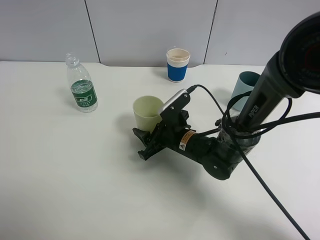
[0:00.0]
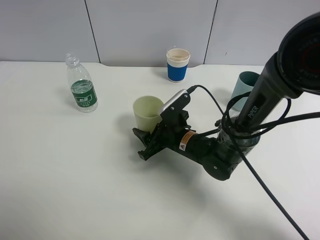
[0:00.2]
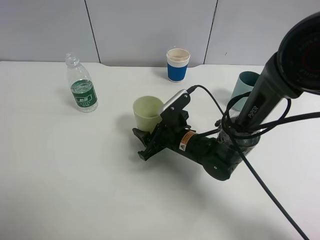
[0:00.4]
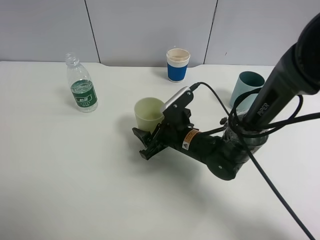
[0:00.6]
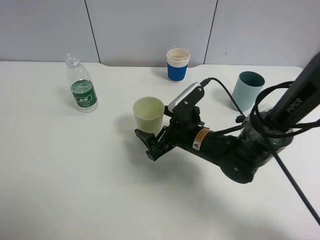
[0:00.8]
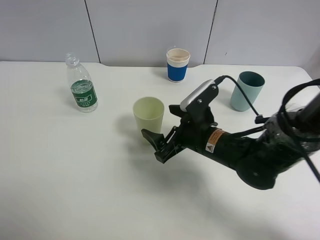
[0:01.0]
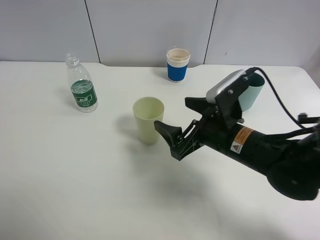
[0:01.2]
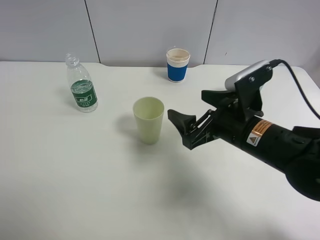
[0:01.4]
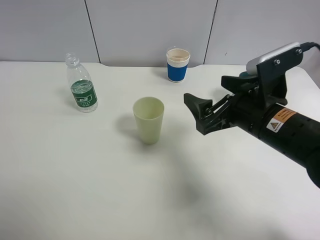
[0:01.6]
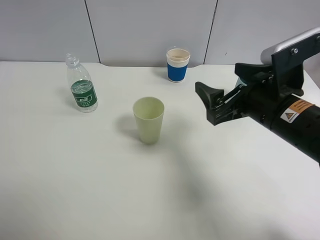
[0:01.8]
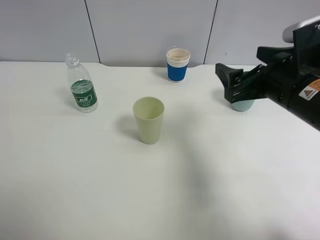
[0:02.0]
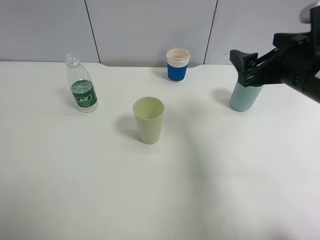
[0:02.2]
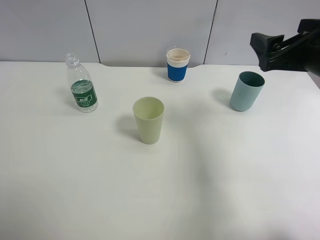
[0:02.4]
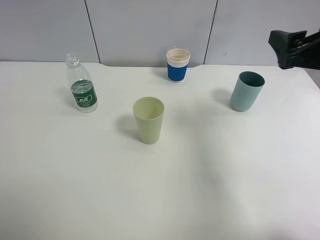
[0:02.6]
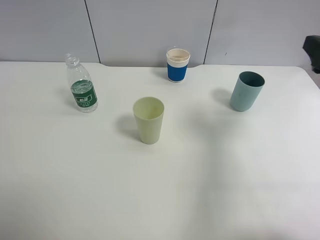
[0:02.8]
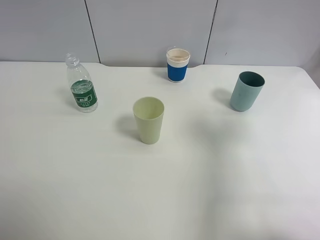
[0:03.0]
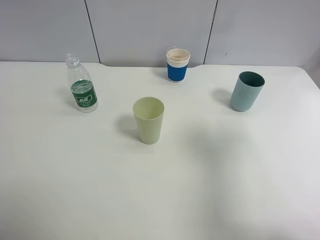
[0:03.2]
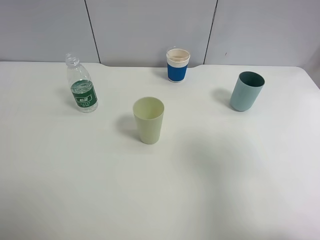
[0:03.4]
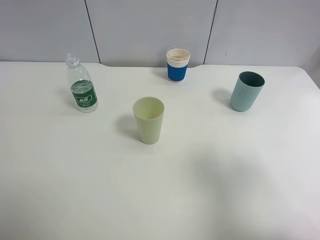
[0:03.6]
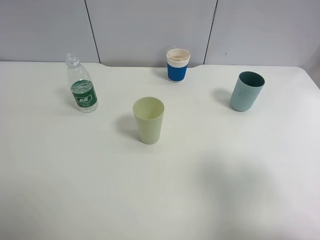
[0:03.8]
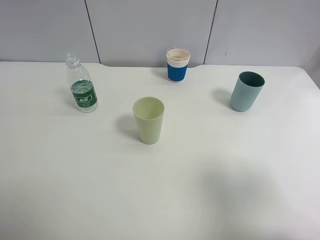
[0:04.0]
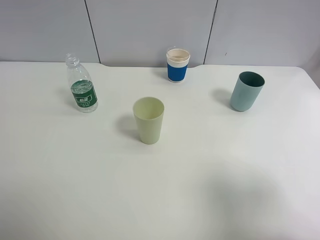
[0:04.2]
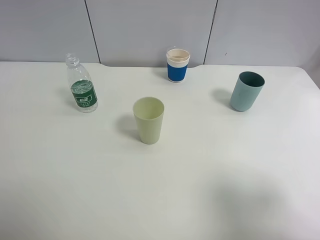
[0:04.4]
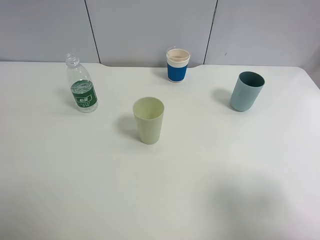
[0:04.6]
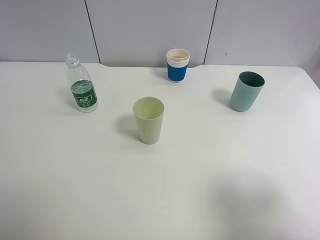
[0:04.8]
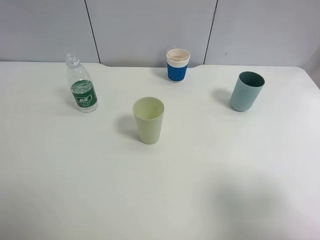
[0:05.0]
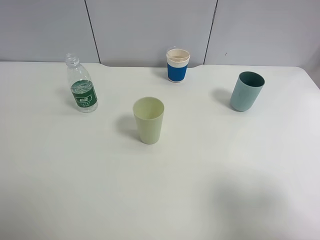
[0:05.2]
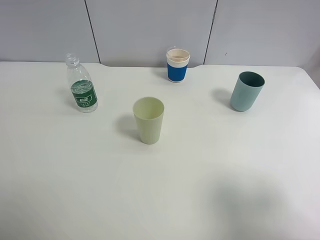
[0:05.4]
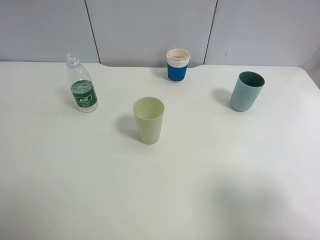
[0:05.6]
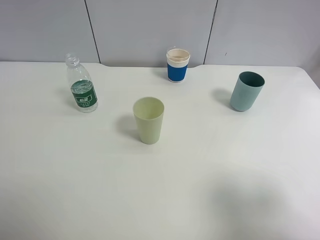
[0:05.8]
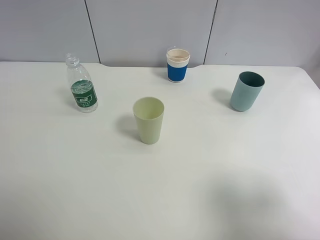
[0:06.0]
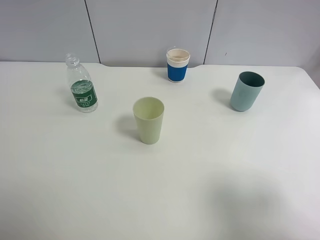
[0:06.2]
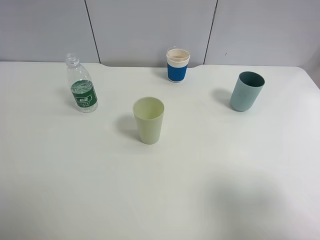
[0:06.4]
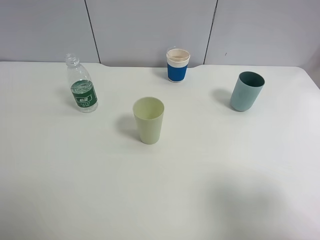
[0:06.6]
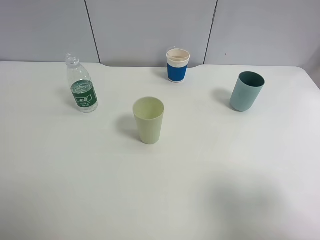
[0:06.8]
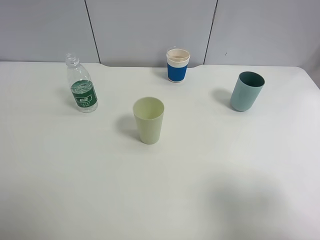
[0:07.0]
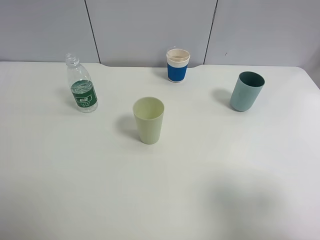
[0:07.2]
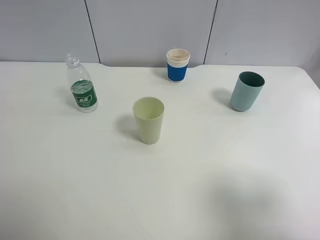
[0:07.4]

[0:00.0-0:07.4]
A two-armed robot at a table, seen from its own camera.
Task of the whole recording: use a clamp to hold the bottle of the drink, pour the beverage into a random cup, then clamp the cup containing the drink and pour the drink into another random cup.
0:00.0 to 0:01.4: The right gripper travels upward, to the right and backward by some 15 cm, and opens its fingers.
0:01.4 to 0:03.0: The right gripper is displaced to the right and upward by about 20 cm.
0:03.0 to 0:04.4: The right gripper moves backward, some 15 cm.
0:04.4 to 0:07.4: Both grippers stay about where they are.

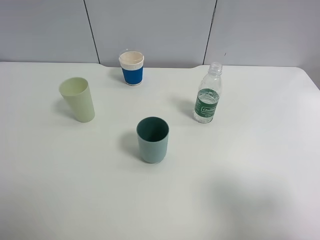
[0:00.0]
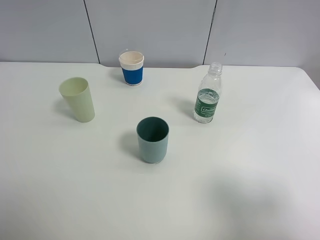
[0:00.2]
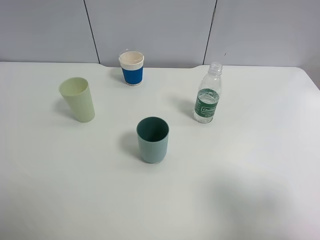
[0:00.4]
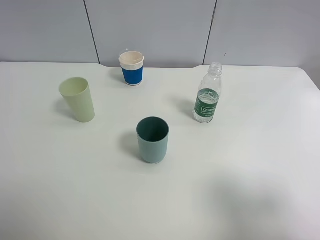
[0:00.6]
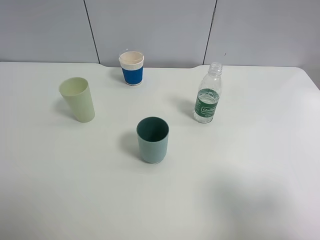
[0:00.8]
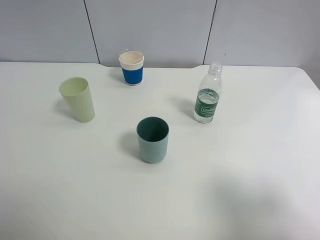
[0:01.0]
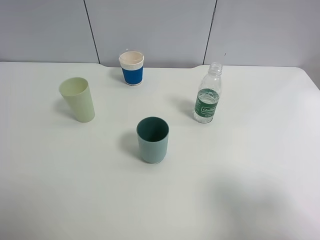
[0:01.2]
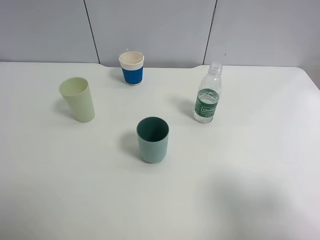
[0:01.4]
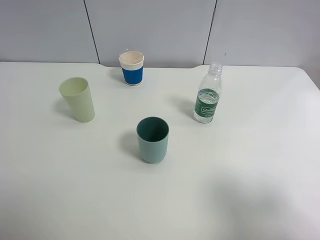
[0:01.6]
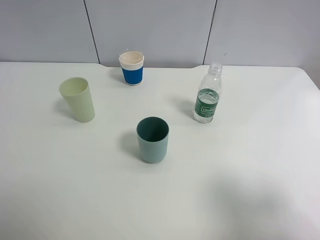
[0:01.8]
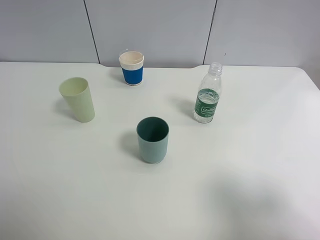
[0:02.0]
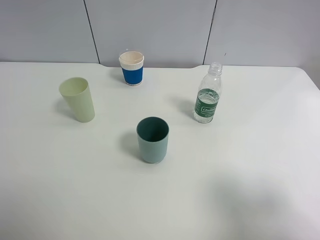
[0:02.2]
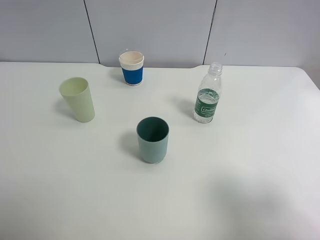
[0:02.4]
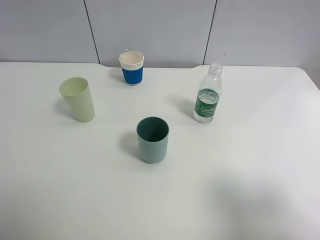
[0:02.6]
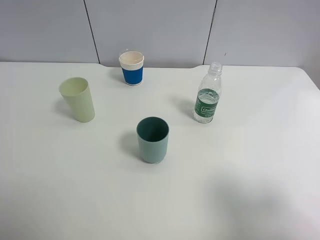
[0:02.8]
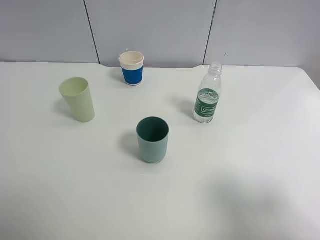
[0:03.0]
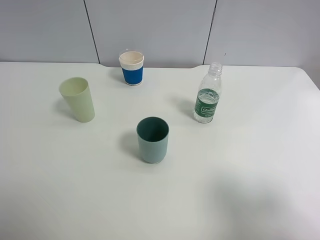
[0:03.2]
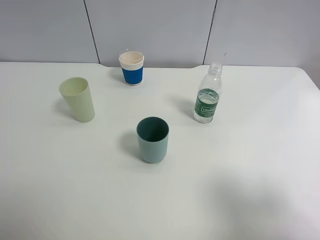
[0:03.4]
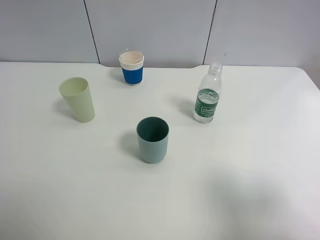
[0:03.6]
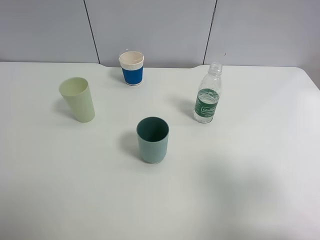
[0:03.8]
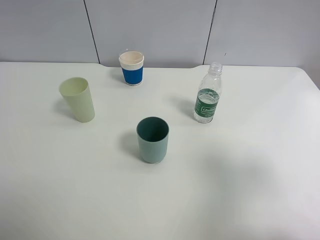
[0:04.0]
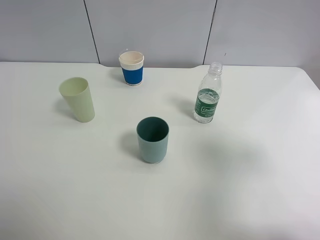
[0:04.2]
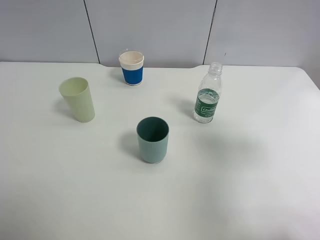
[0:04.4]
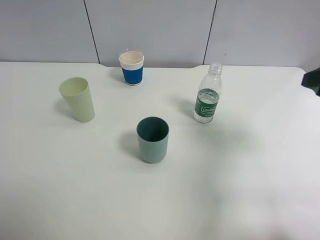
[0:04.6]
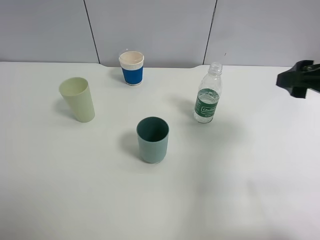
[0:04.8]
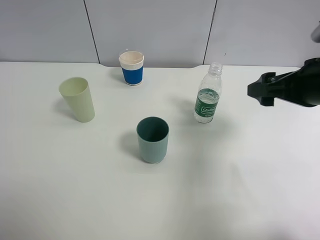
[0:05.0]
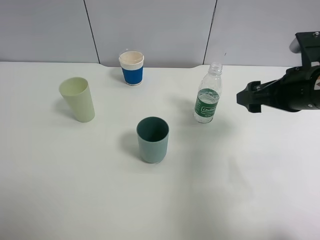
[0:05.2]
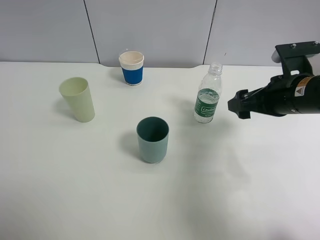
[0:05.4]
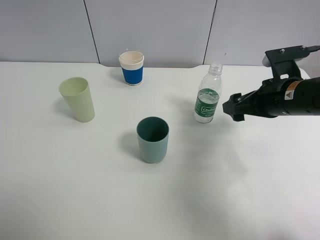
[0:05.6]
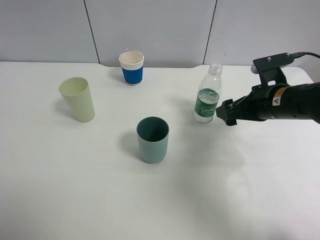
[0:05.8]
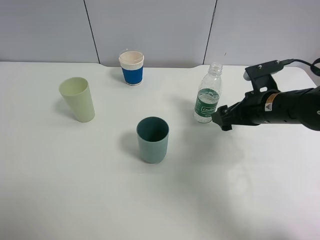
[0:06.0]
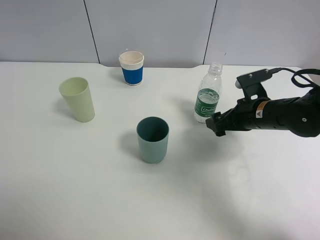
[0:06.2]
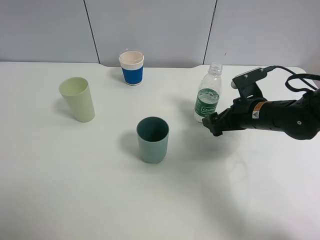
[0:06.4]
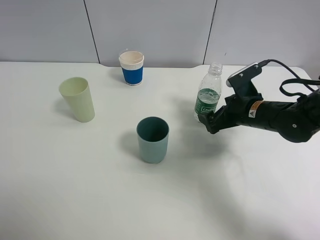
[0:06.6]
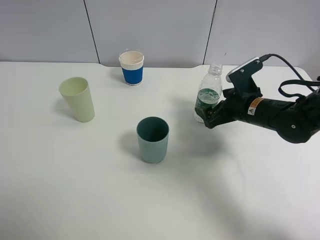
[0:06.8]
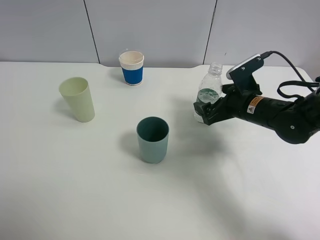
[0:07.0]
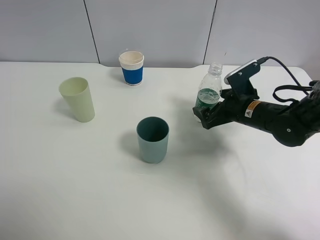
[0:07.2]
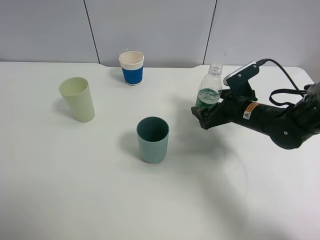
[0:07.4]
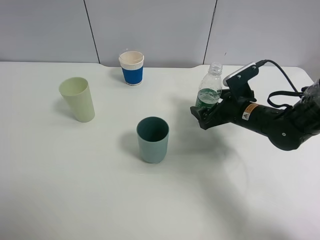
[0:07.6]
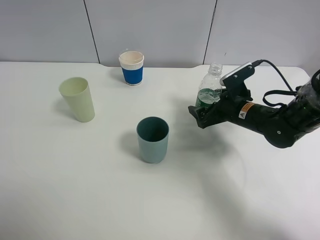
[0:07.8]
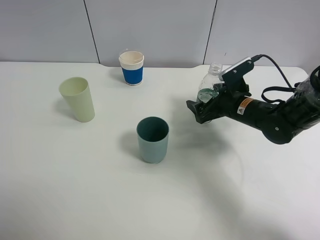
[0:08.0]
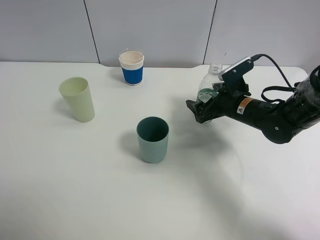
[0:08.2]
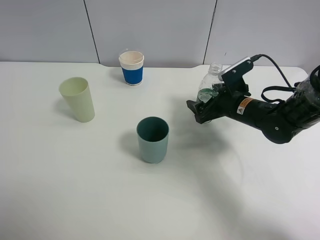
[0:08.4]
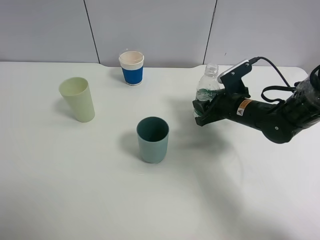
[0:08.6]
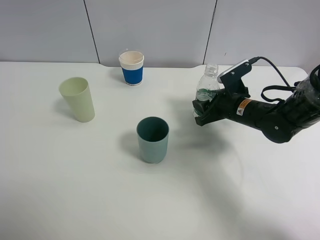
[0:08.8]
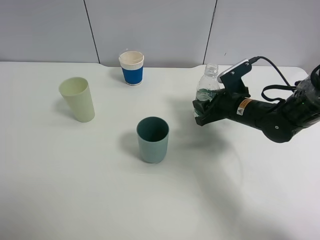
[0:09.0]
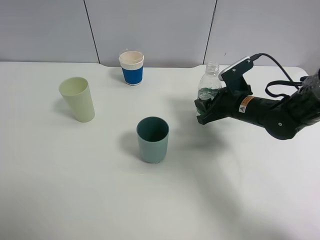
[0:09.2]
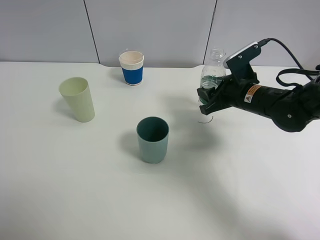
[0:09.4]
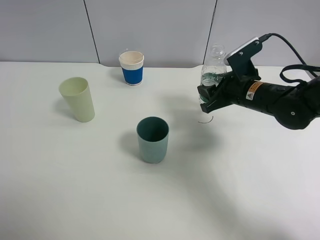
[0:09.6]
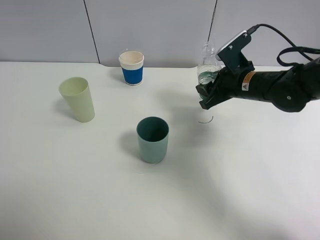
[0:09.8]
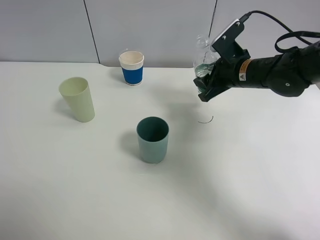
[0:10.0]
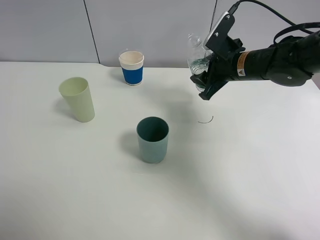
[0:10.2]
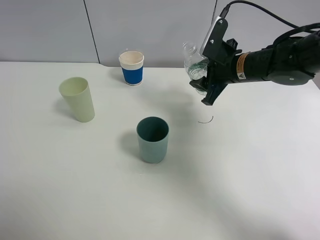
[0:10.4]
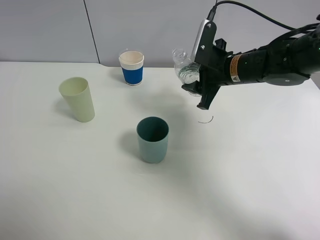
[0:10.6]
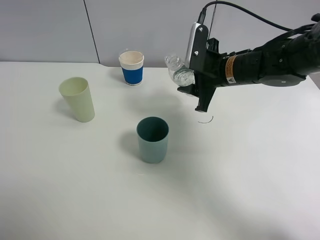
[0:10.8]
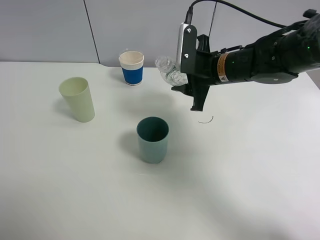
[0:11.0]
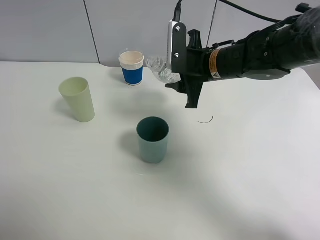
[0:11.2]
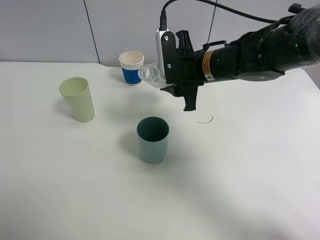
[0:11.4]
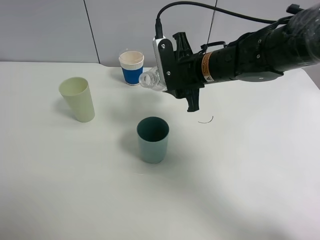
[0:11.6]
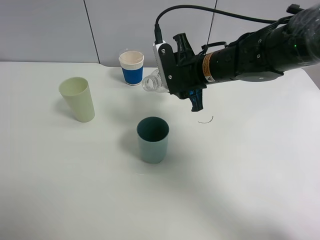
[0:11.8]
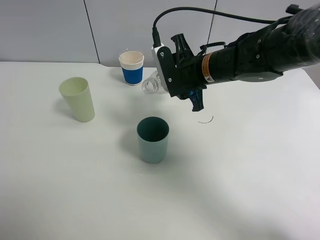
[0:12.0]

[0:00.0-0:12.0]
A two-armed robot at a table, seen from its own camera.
Task of the whole recording: use a clamp to hold the bottle of the drink, pour the beverage into a random cup, then clamp the cup containing the drink and pour the drink into another random cup.
Step, 0:00.0 to 0:09.2: Pick up the water bottle with right gripper.
0:00.0 to 0:03.0: Neither gripper changes place.
0:03.0 to 0:04.4: The right gripper is displaced forward by about 15 cm.
0:04.4 to 0:06.0: The right gripper is displaced downward, forward and to the left by about 20 cm.
0:06.0 to 0:07.6: The right gripper changes place by roughly 5 cm.
0:07.6 to 0:09.0: The right gripper closes up.
0:09.0 to 0:10.4: The right gripper shifts some 10 cm upward.
0:10.4 to 0:12.0: The right gripper travels to the left by roughly 10 cm.

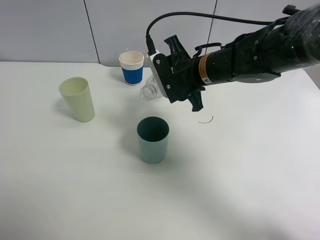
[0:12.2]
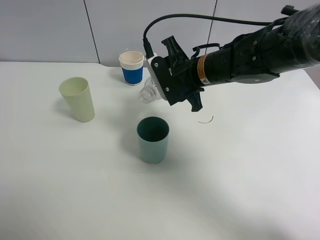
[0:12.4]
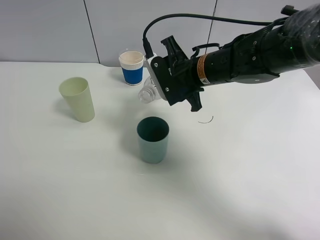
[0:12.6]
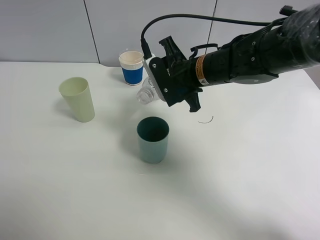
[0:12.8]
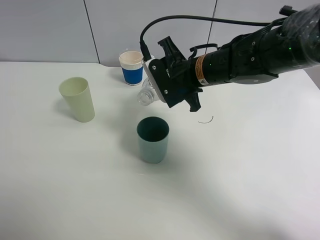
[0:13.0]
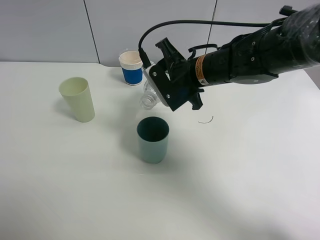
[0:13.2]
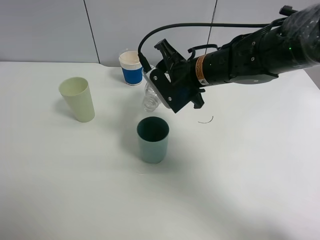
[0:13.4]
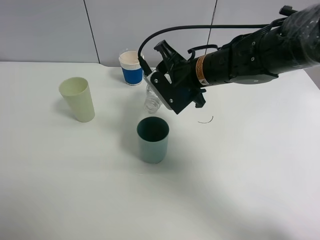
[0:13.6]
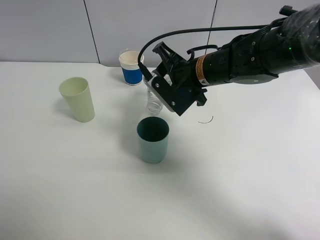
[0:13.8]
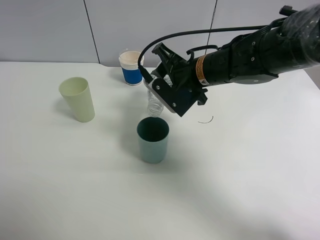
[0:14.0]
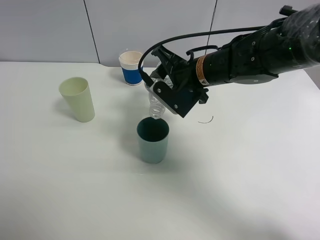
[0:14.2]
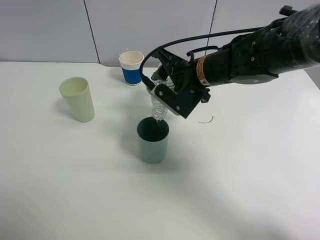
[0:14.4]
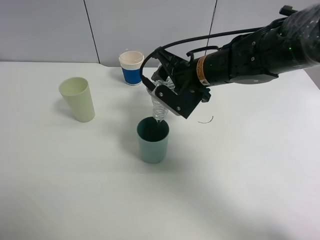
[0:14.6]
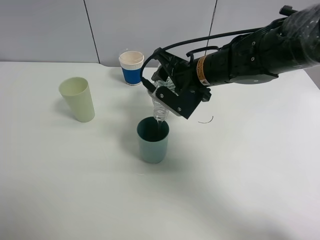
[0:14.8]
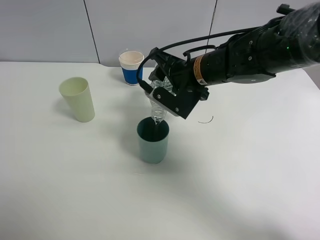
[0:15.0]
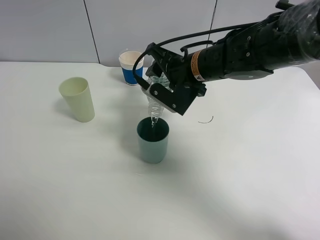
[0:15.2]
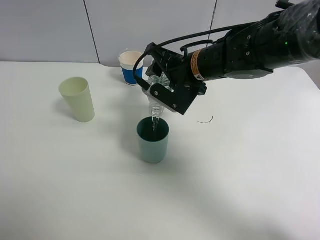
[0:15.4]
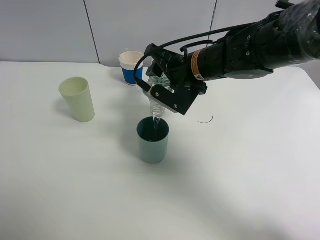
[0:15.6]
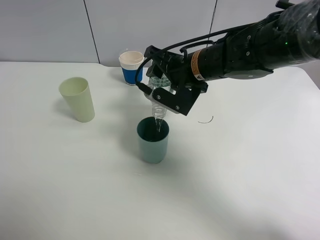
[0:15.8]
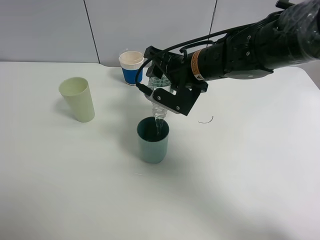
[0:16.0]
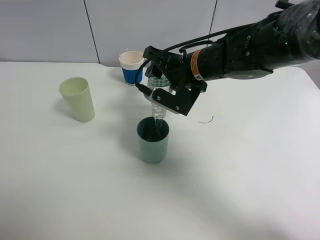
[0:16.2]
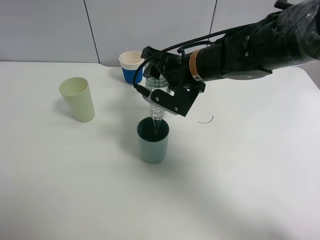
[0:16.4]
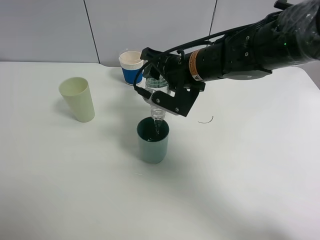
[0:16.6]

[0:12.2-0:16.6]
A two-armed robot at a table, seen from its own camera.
Task of the whole recording: use a clamp to hold the bottle of the drink, pour the beverage into a random cup, then clamp the cup containing the drink and pour the drink into another random cup.
0:12.2 to 0:13.6: The grippers move only a little.
0:13.6 to 0:15.2: The grippers stay close to where they were, moving slightly.
0:15.2 to 0:16.6: The grippers move only a little.
